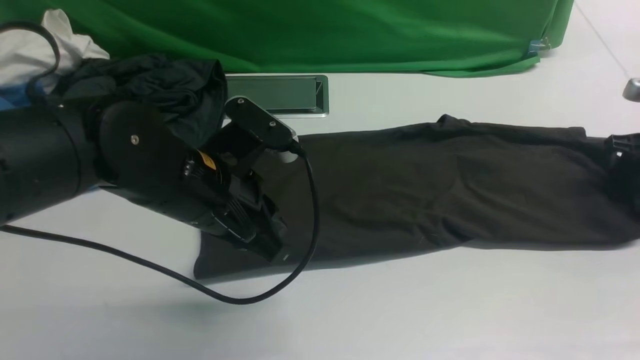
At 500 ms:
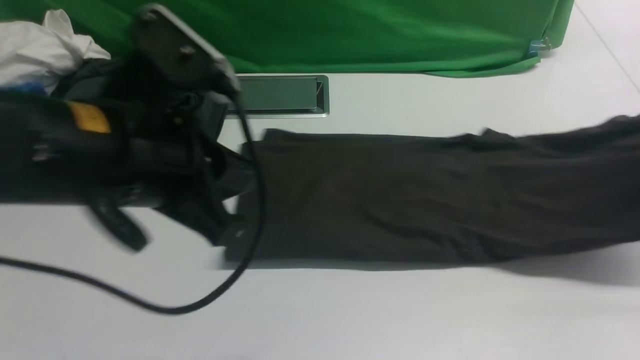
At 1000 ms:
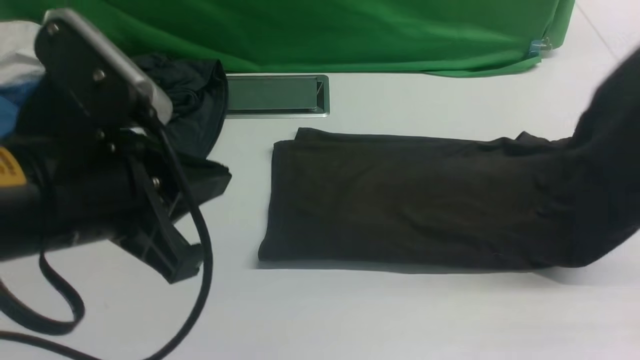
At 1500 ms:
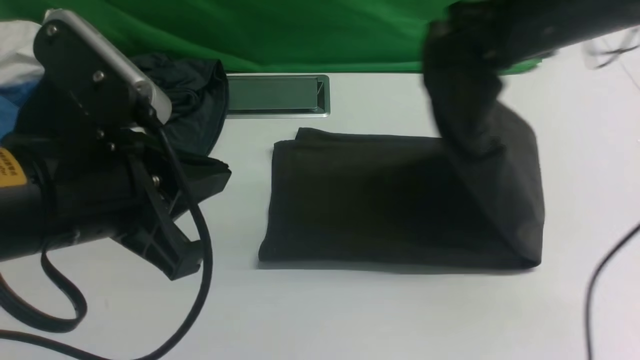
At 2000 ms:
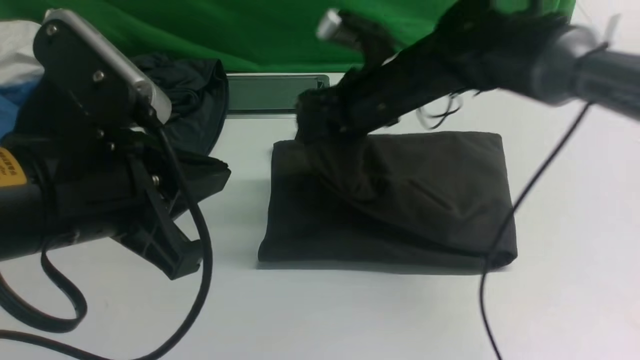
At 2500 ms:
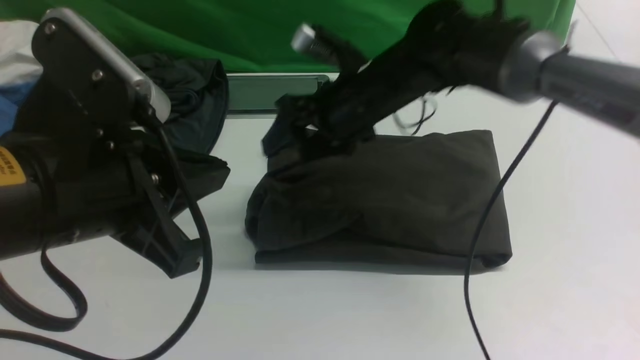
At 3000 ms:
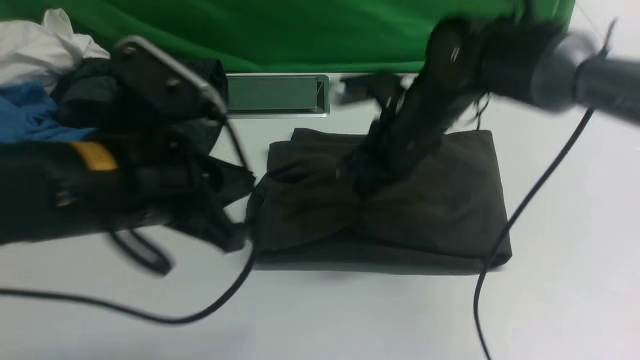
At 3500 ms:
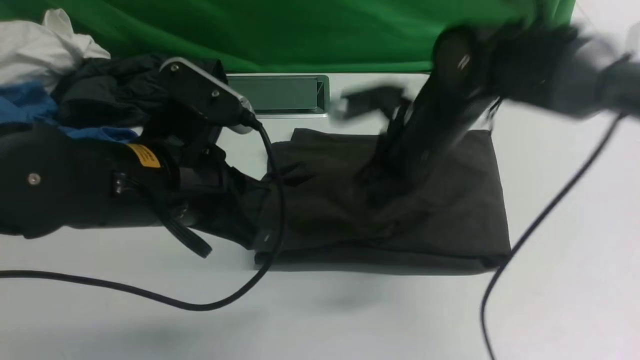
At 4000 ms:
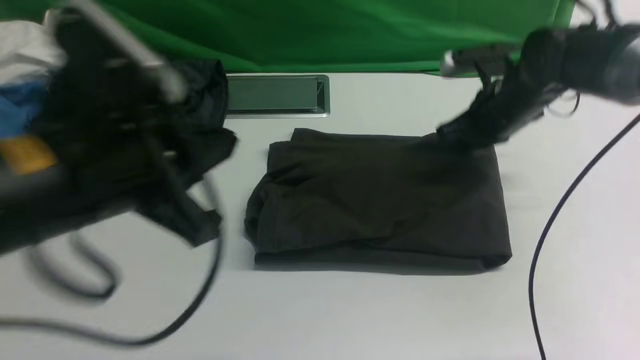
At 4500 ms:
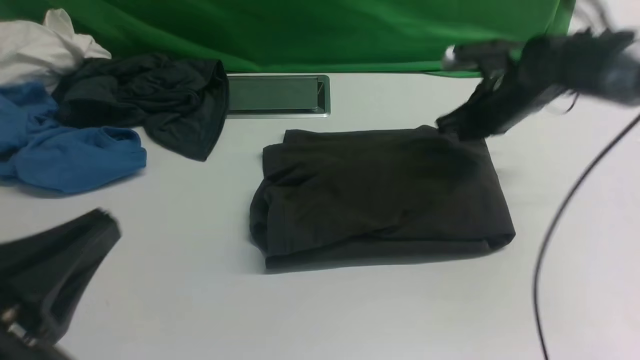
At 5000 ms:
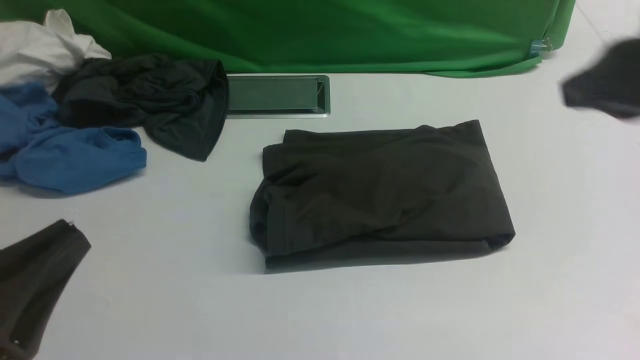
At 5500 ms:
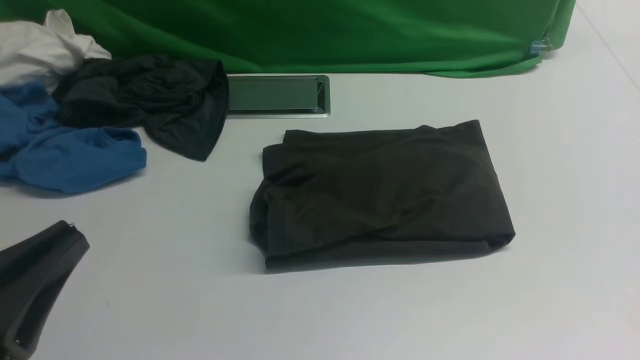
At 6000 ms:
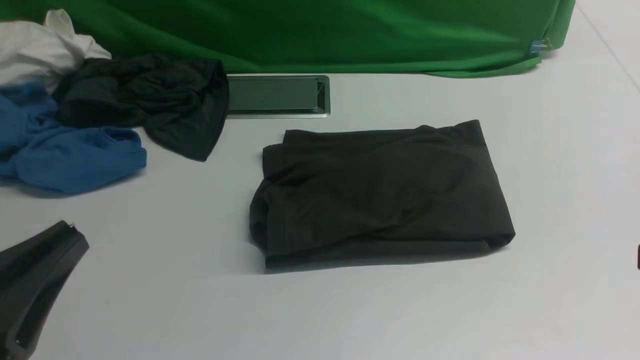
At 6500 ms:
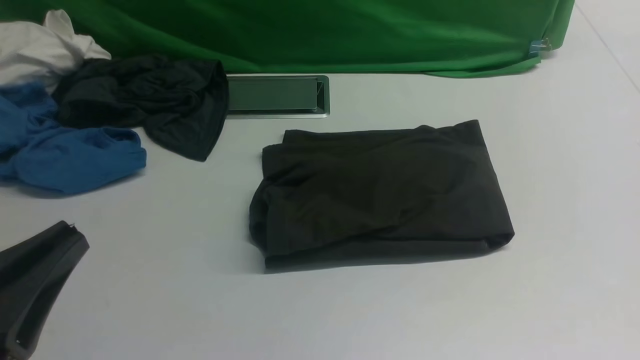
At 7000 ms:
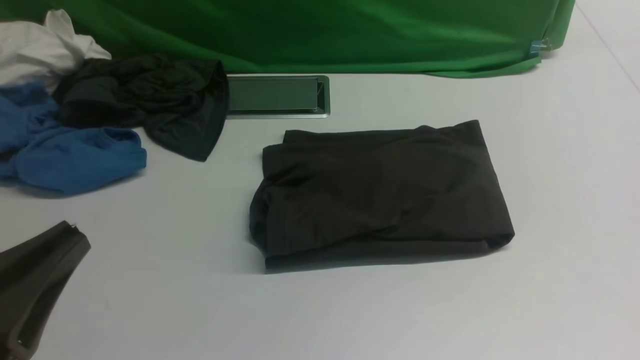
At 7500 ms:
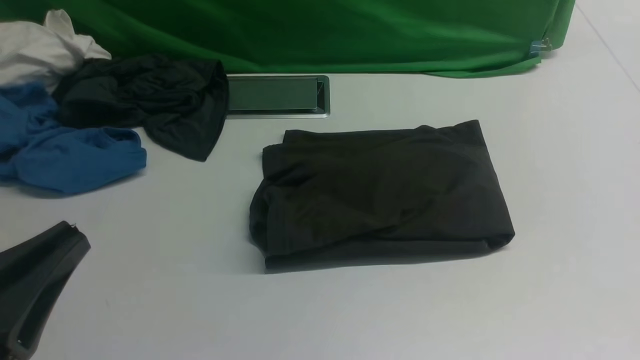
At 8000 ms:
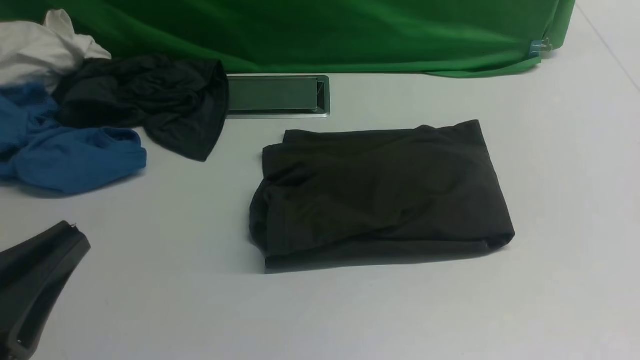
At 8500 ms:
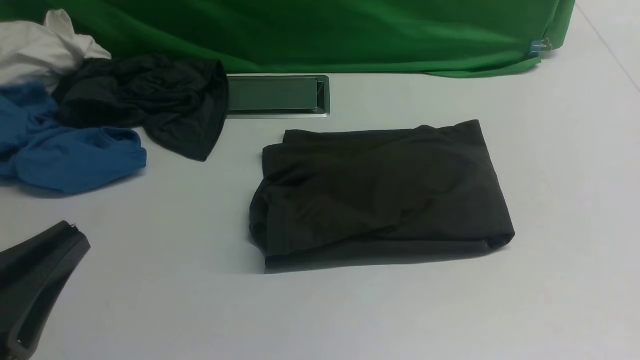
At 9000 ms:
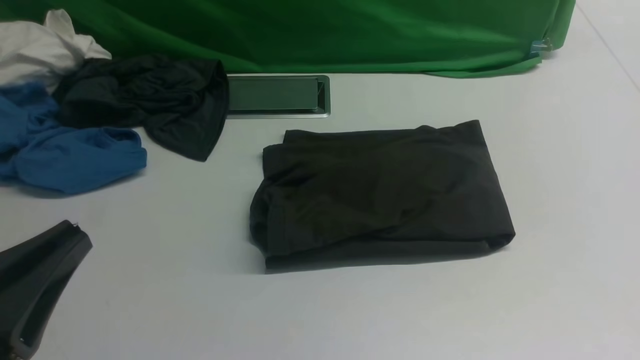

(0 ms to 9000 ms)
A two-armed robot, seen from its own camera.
Step, 500 ms - 2500 ms: use the right arm to drag the right edge of the fabric to the left and folds it over the left edge.
0 ms - 2000 ms: The right gripper is displaced to the left by approximately 35 cm, while the left gripper moves backward and upward, about 15 cm.
2000 ms - 4500 ms: The right gripper moves to the right, about 15 cm, and opens and closes again; the left gripper goes some 10 cm backward and to the left.
4500 ms - 7000 ms: The right gripper moves backward, some 40 cm.
7000 ms - 9000 ms: The two grippers keep their place.

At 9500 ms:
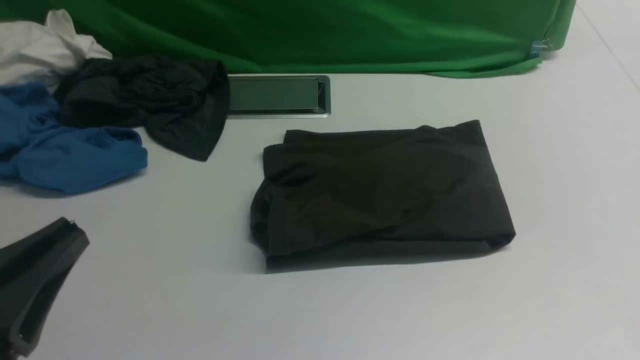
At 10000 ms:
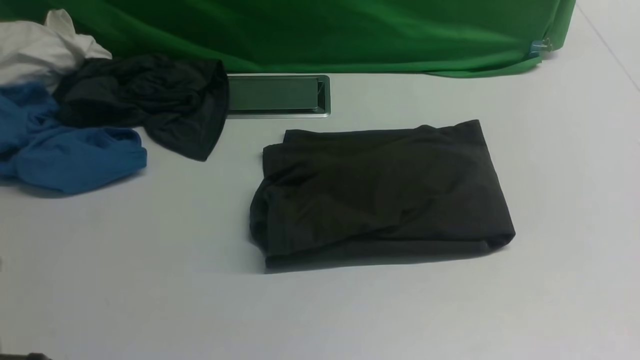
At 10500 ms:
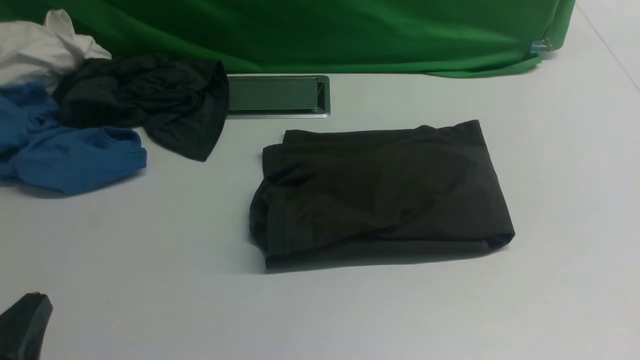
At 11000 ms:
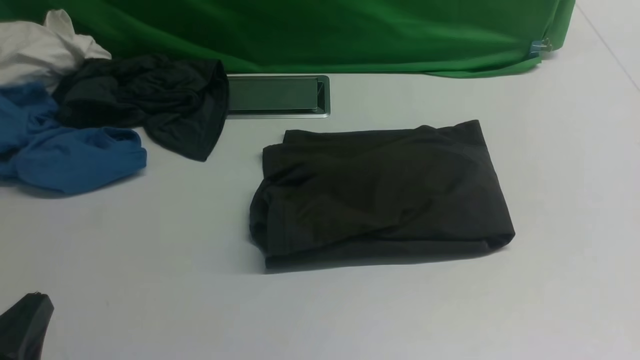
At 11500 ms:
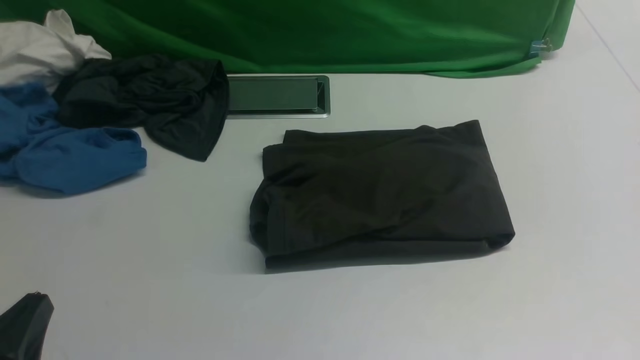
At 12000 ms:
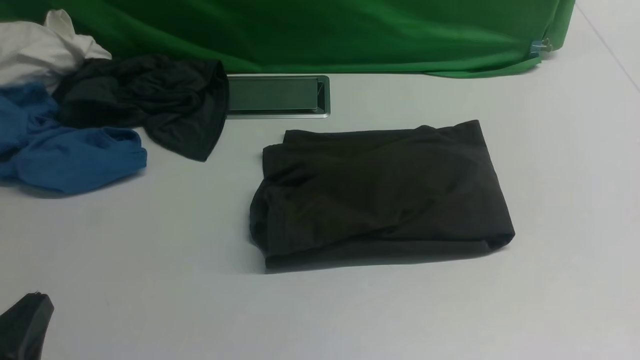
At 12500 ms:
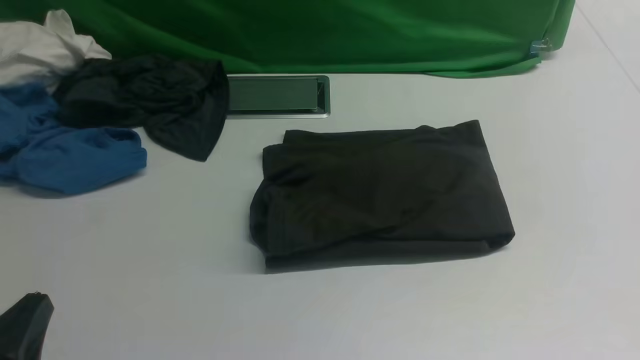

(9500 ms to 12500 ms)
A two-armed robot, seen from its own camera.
9500 ms - 11000 ms: The left gripper heads downward, covering approximately 10 cm.
11000 ms - 12500 ms: Neither gripper changes place.

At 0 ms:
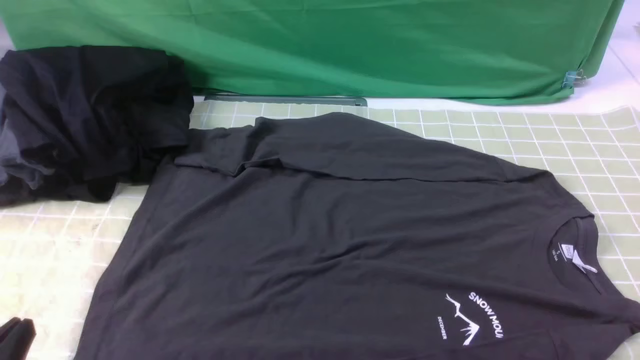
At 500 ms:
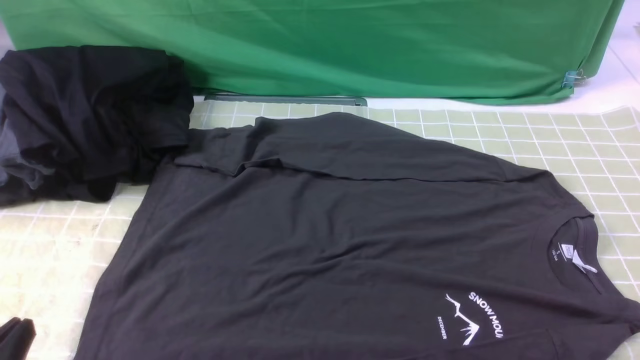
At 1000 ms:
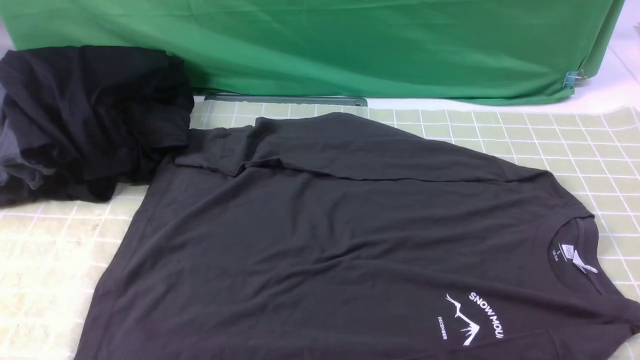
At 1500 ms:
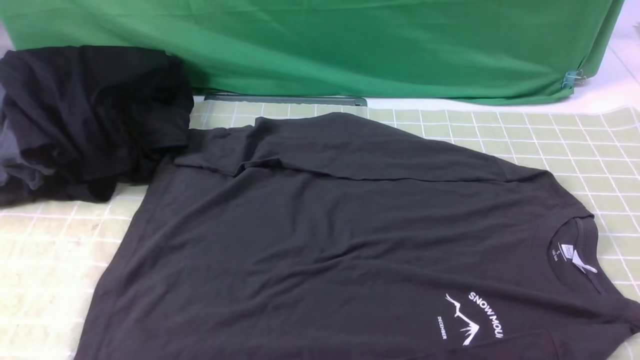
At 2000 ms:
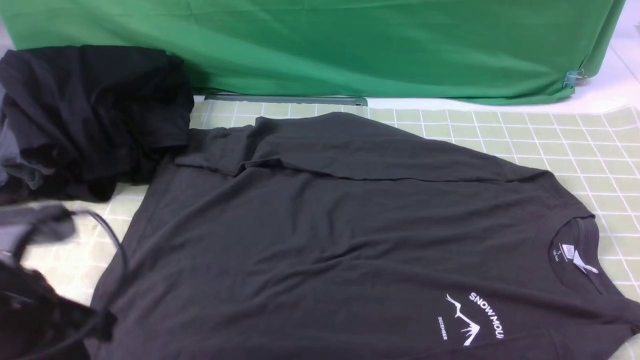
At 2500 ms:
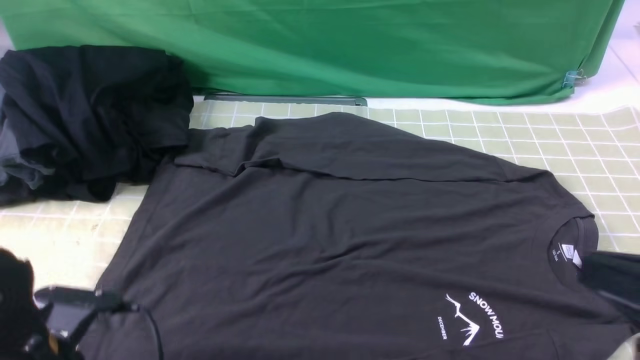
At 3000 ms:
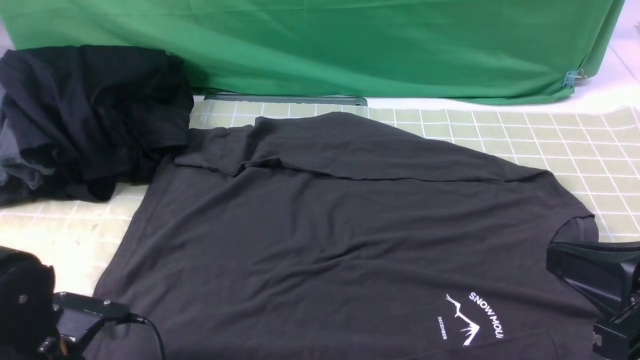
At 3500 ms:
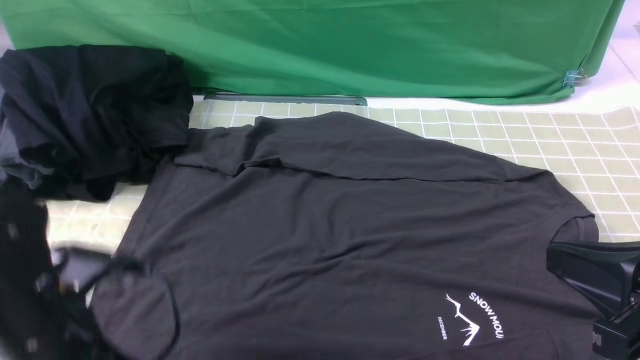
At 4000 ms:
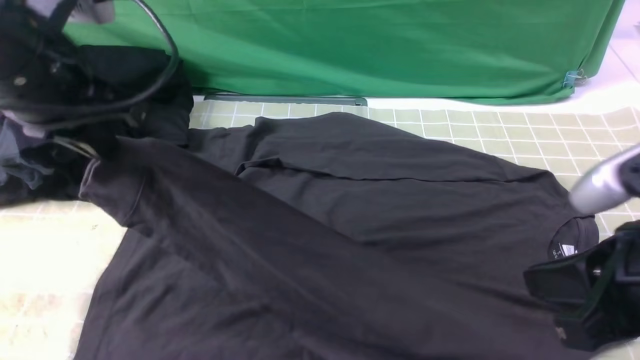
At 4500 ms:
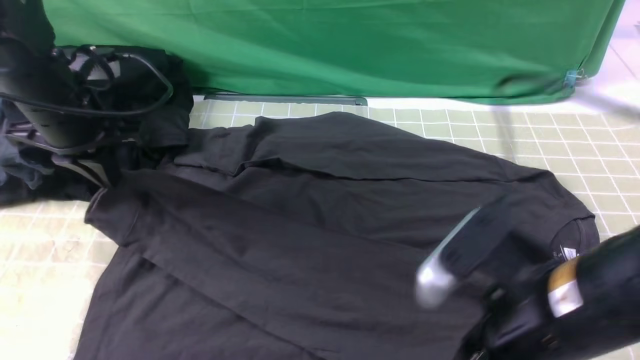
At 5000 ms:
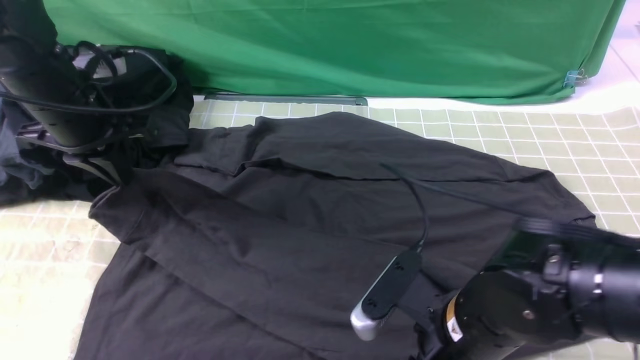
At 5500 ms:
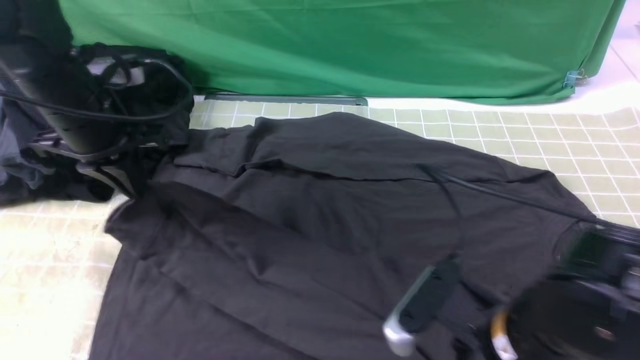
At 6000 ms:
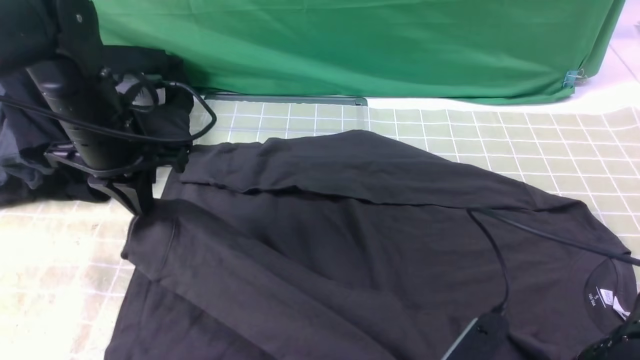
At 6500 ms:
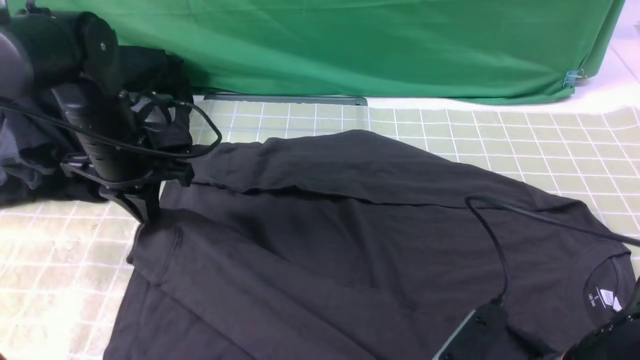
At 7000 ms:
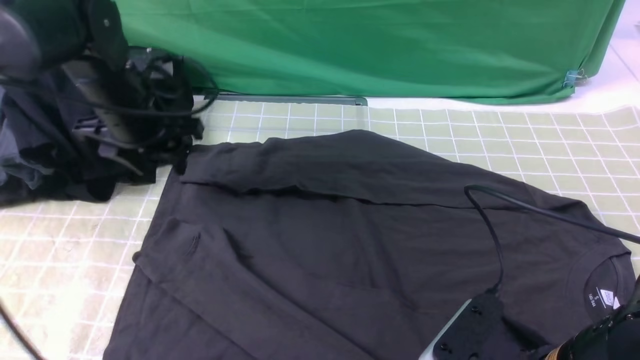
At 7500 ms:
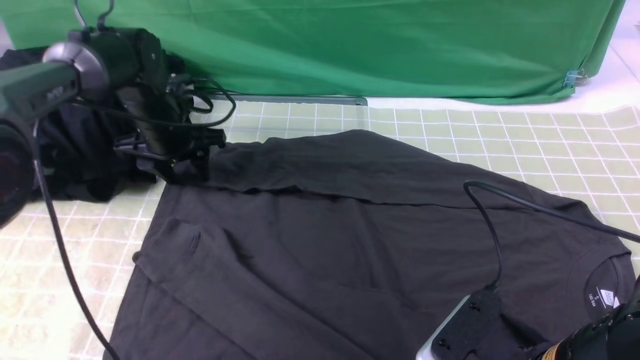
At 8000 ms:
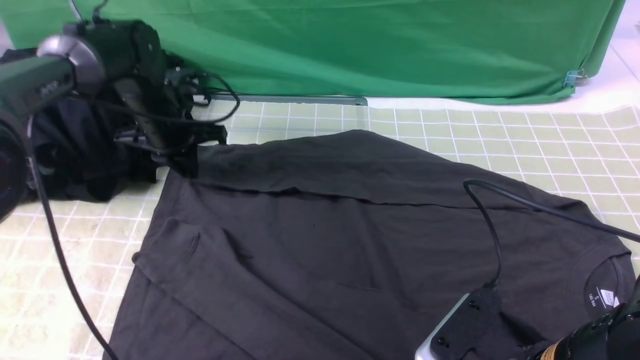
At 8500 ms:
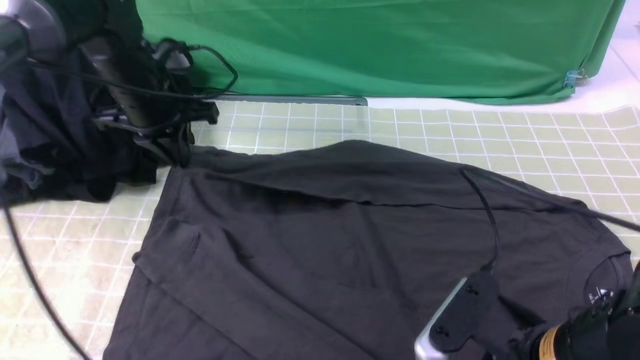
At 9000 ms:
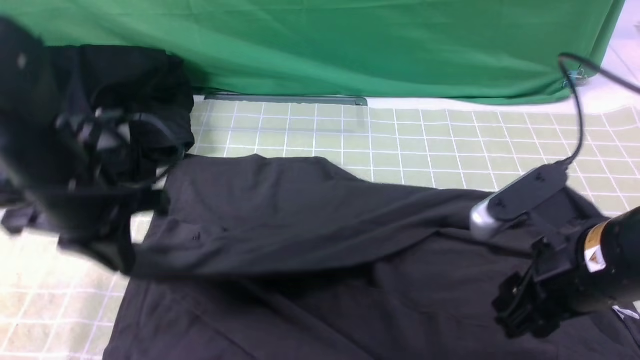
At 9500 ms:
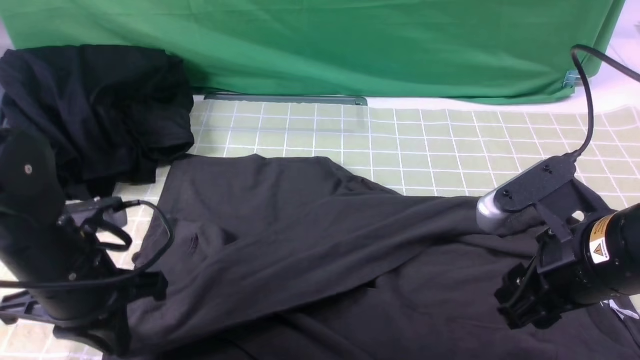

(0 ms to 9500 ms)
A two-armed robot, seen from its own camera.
Step, 0 ms - 3000 ms: use the left arm to clamp the cuff closest to it.
Step, 3500 ms - 6500 ms: use the left arm to drag and place the cuff at the centered position on the left edge of the fabric.
Step, 7000 ms - 7500 ms: use the left arm to clamp the cuff farthest from it.
0 ms - 2000 ms: The left gripper heads forward and upward, covering about 15 cm.
2000 ms - 4000 ms: The left gripper travels forward and upward by roughly 15 cm, and opens and closes again. The right gripper travels to the left and forward by approximately 15 cm.
4000 ms - 5500 ms: The left gripper moves downward and forward, about 10 cm, while the right gripper is displaced downward and to the left by about 15 cm, and opens and closes again.
5500 ms - 7500 ms: The right gripper opens. Meanwhile the left gripper is displaced forward and downward by approximately 15 cm, and opens up.
7500 ms - 9500 ms: The right gripper goes some 10 cm forward. The left gripper goes about 25 cm backward, and closes up.
